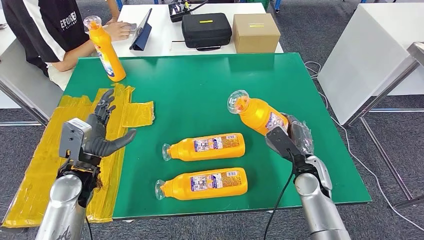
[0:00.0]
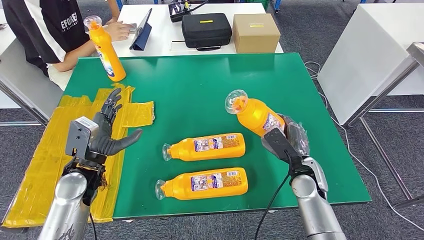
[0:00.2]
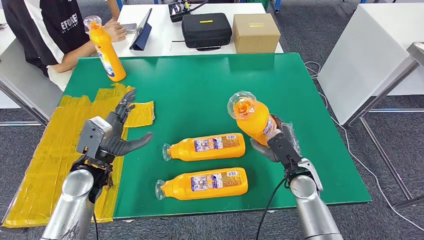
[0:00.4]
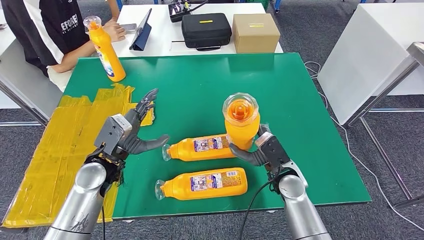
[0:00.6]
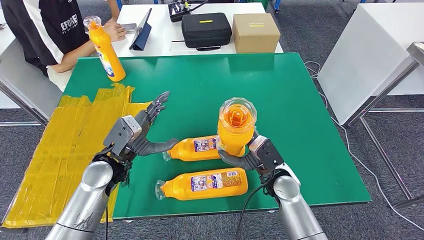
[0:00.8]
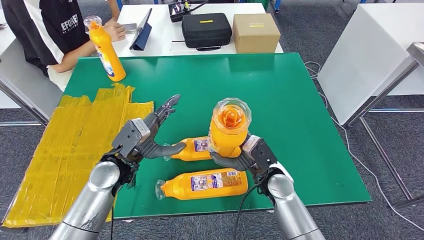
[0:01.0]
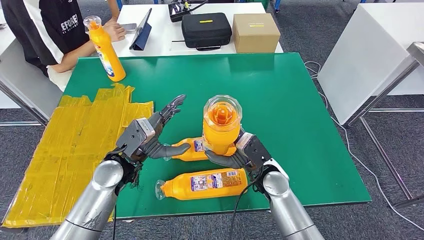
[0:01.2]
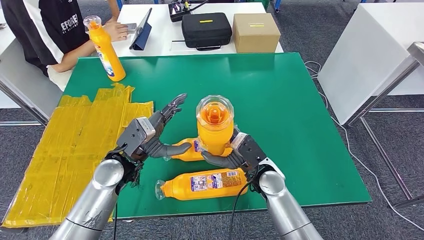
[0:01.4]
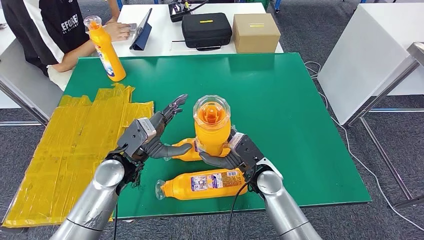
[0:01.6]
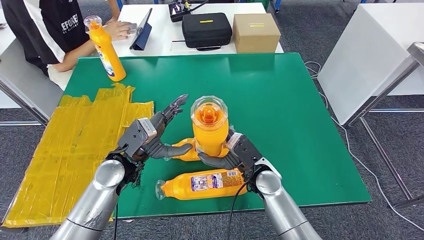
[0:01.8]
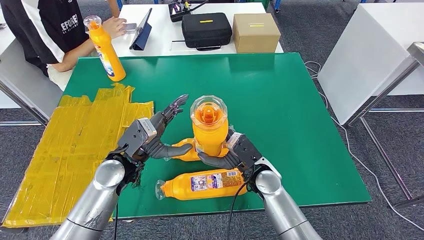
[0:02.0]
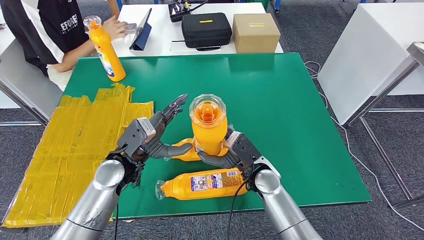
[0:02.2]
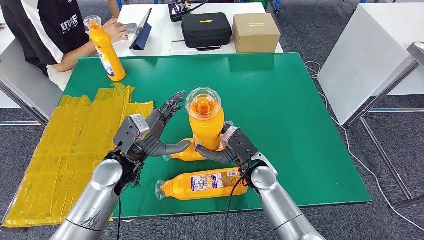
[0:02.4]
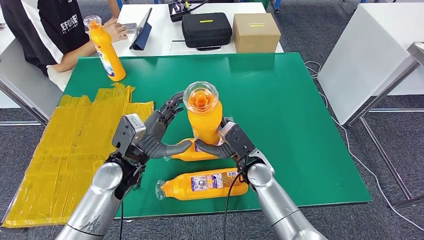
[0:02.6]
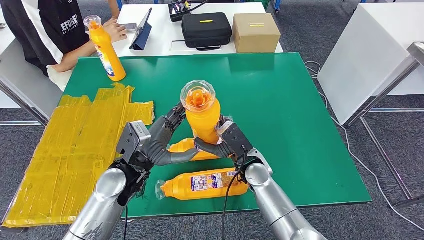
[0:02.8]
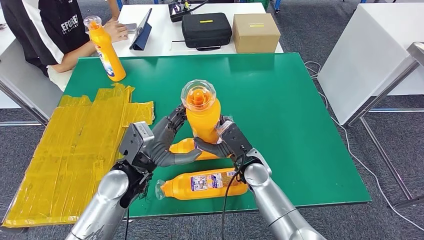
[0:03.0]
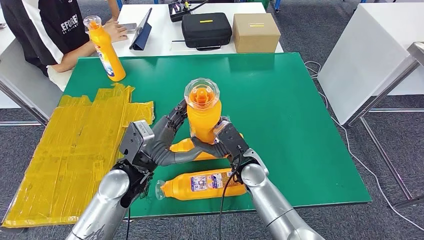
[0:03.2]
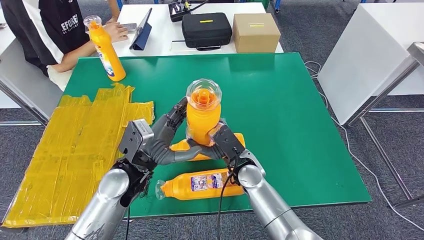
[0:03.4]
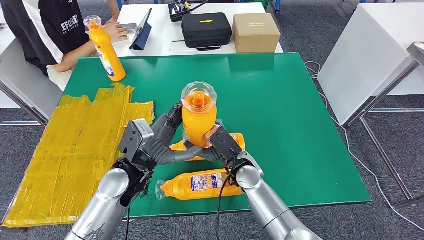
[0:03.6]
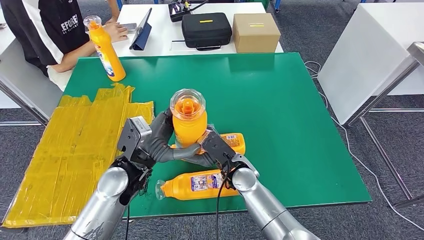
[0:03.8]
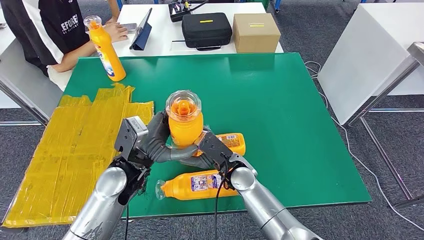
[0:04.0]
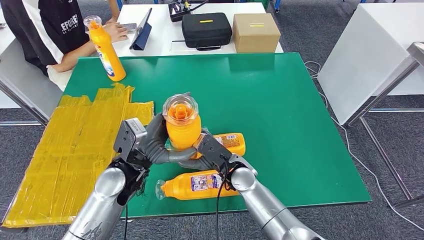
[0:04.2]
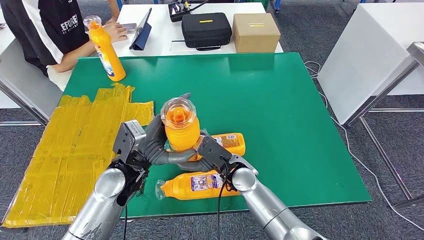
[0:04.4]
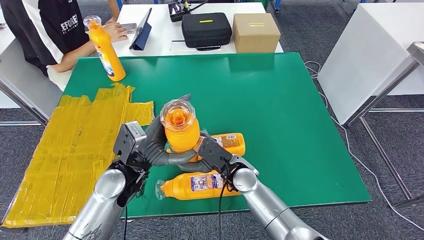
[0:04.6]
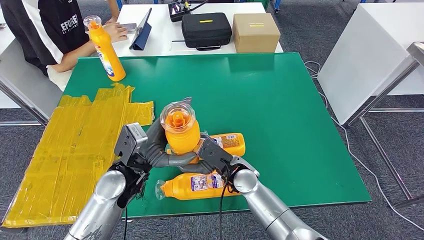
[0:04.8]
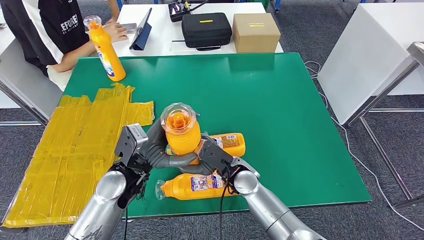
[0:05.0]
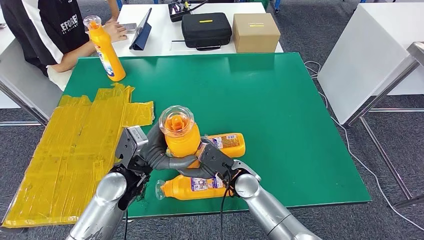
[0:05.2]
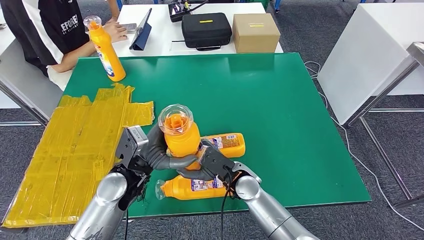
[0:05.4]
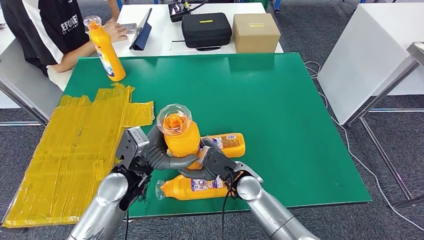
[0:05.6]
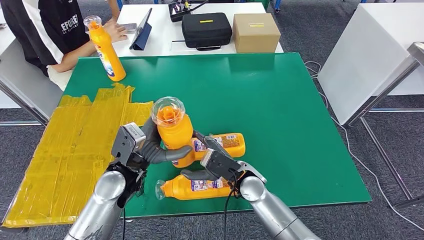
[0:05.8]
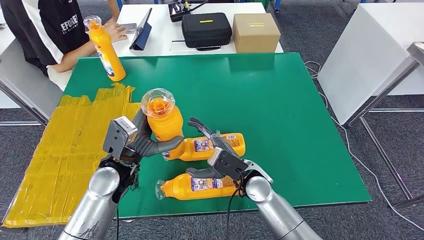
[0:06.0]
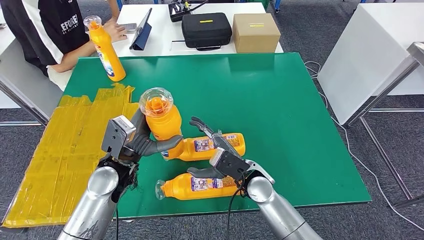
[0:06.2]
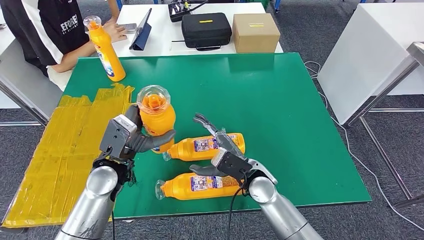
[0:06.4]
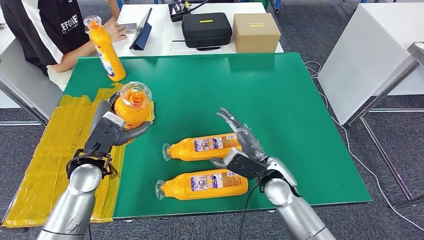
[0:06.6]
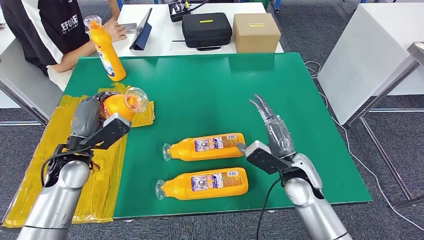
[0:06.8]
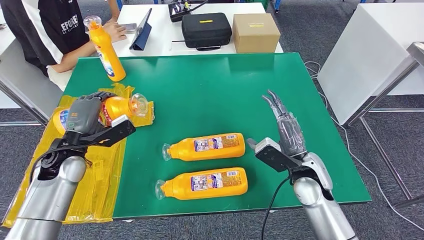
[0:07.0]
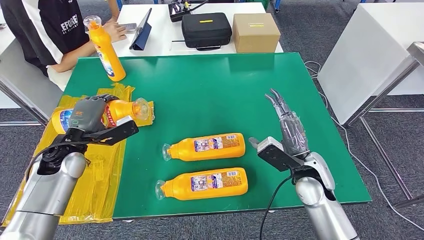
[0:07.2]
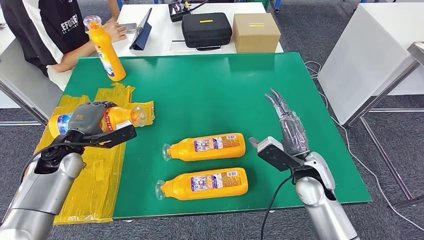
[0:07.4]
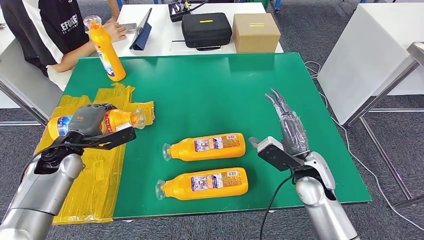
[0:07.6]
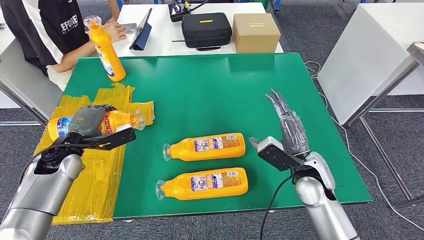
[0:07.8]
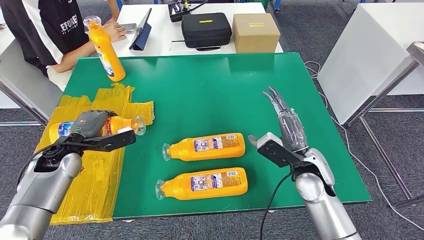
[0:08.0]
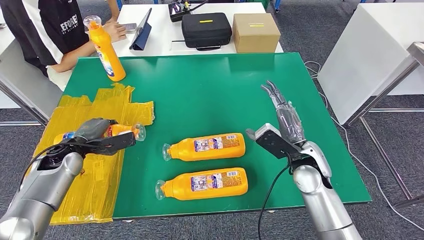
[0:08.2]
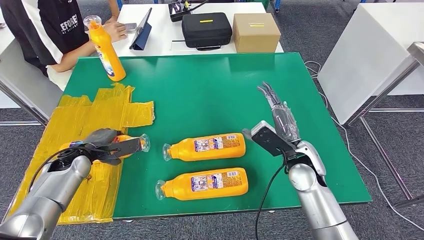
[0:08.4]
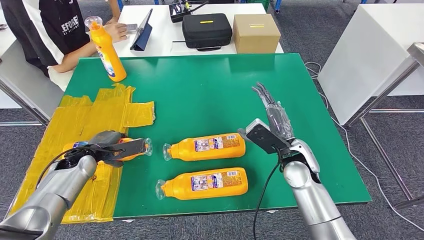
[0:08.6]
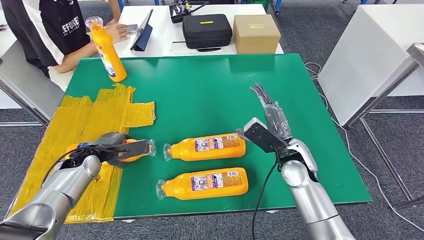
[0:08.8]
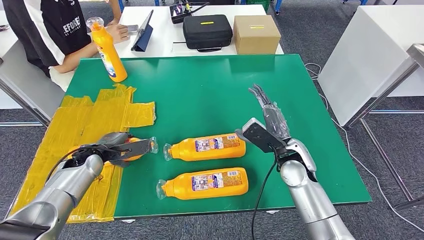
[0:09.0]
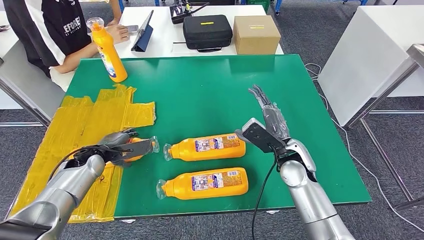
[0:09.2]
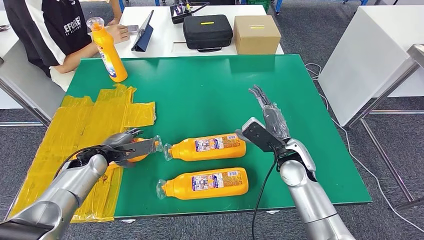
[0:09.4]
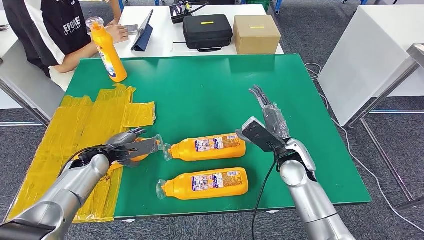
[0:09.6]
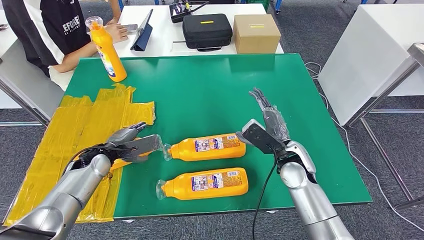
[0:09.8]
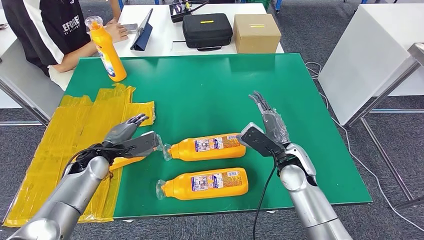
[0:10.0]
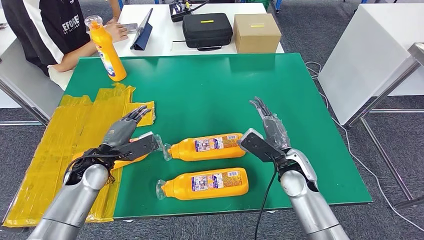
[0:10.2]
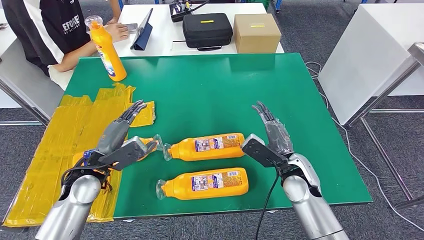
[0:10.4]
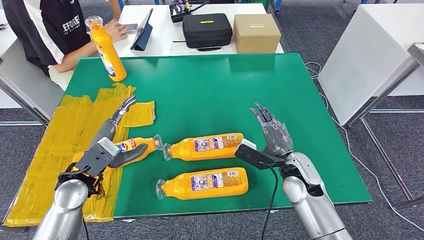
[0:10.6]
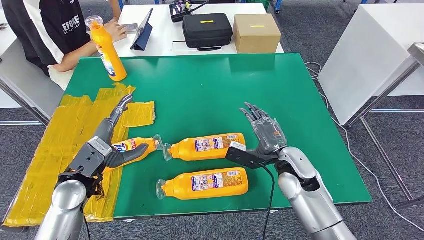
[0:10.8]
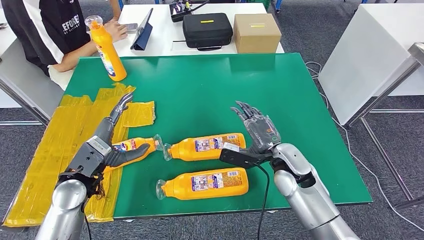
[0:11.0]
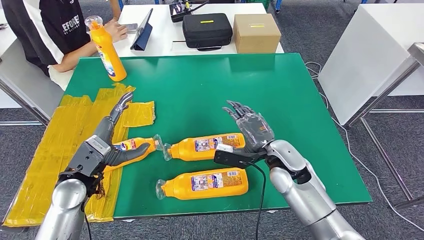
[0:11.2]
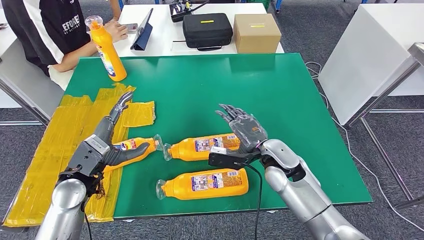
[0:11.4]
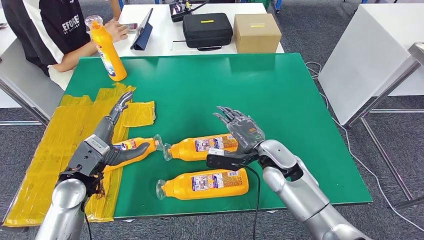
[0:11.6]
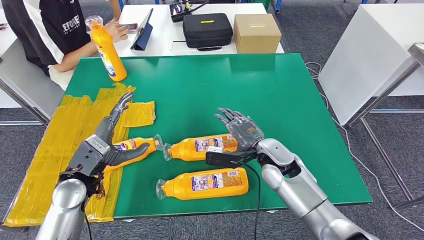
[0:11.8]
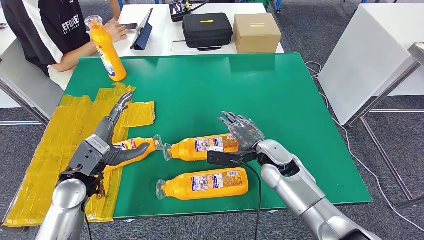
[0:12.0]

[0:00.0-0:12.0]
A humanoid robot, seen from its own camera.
Step, 0:02.0 to 0:11.2: Flip the bottle to face forward.
0:01.6 to 0:03.0: The hands make only small movements.
0:04.4 to 0:06.0: The hands stay close to where they were, moving slightly.
0:09.0 to 0:10.4: The left hand shifts some 10 cm backward and upward.
0:10.4 to 0:12.0: The right hand goes some 5 cm to the left.

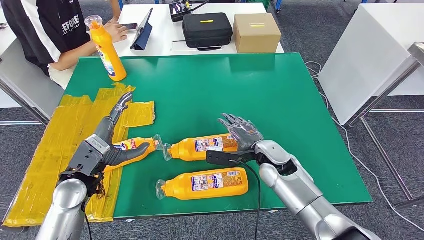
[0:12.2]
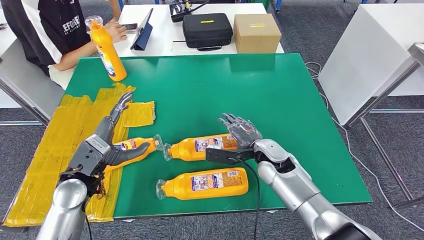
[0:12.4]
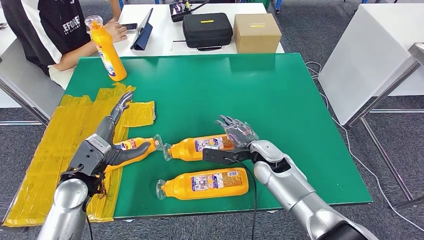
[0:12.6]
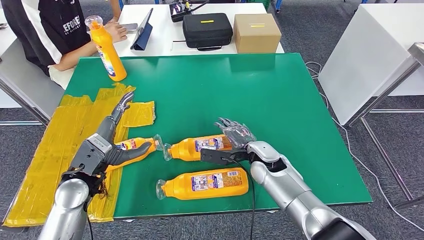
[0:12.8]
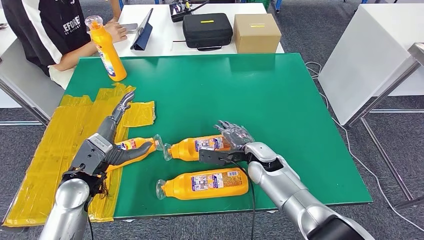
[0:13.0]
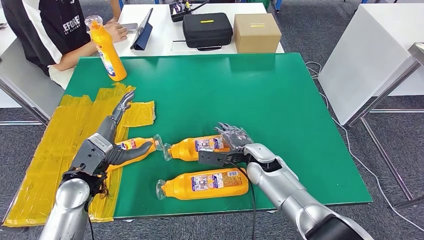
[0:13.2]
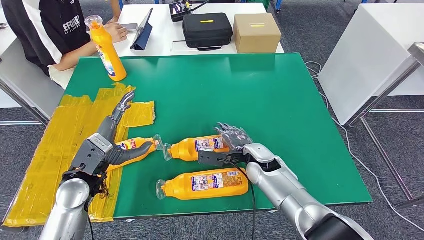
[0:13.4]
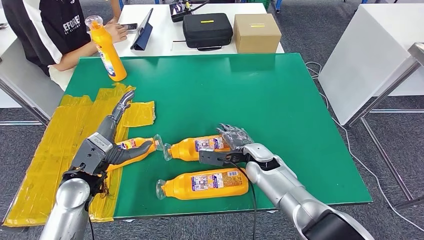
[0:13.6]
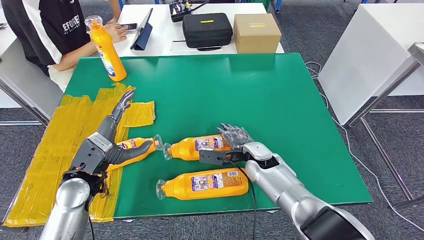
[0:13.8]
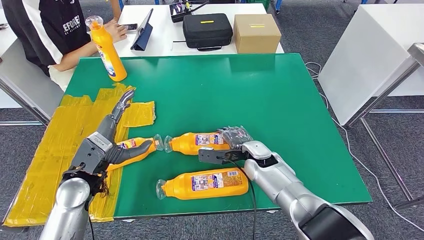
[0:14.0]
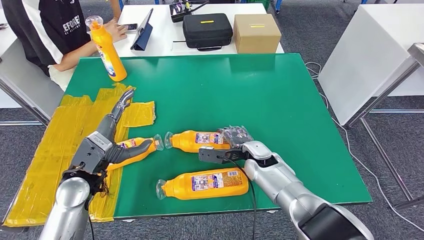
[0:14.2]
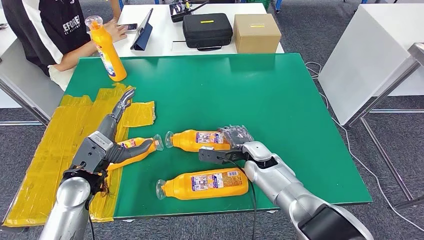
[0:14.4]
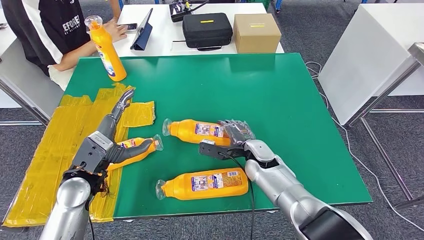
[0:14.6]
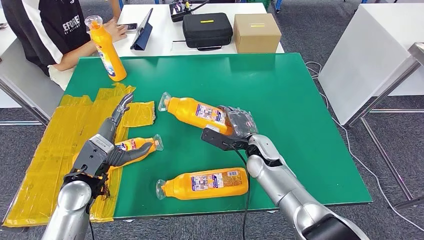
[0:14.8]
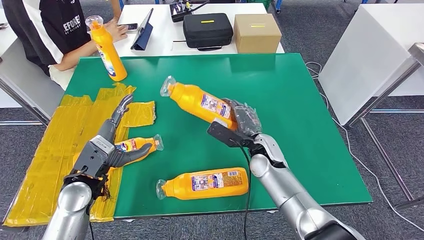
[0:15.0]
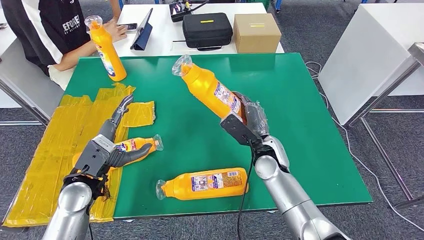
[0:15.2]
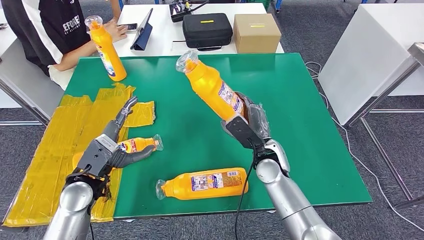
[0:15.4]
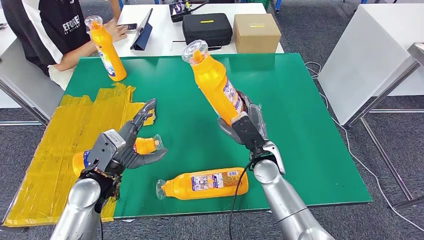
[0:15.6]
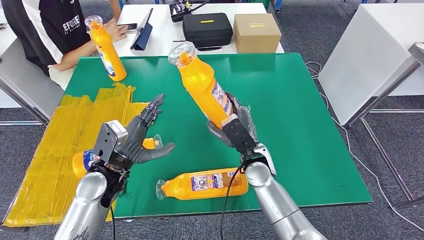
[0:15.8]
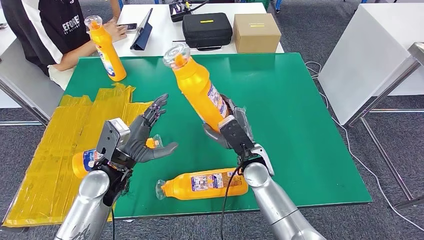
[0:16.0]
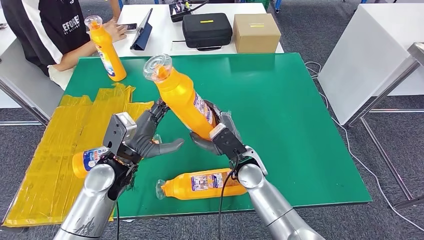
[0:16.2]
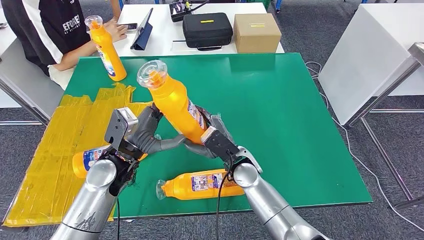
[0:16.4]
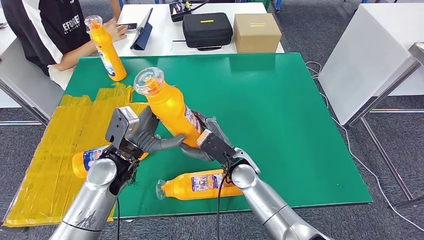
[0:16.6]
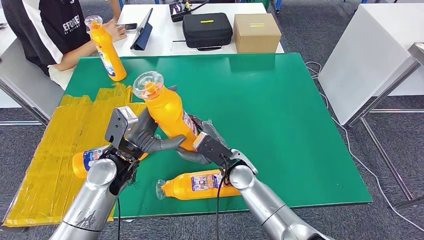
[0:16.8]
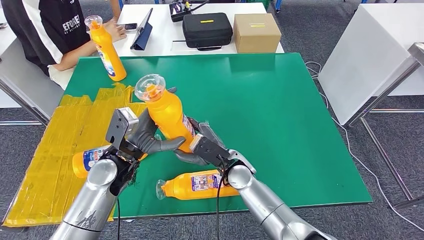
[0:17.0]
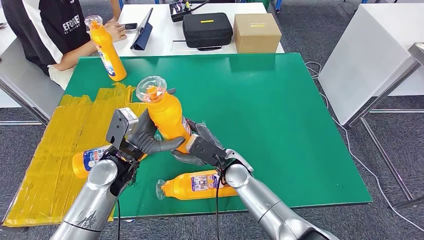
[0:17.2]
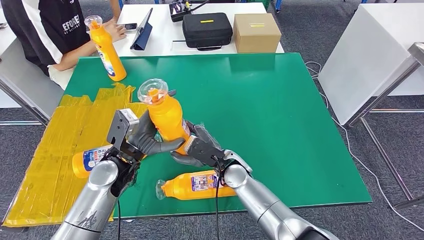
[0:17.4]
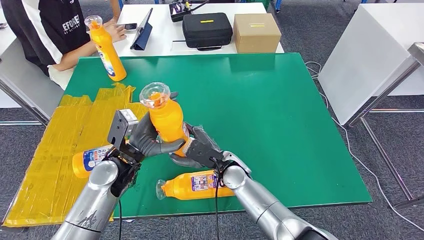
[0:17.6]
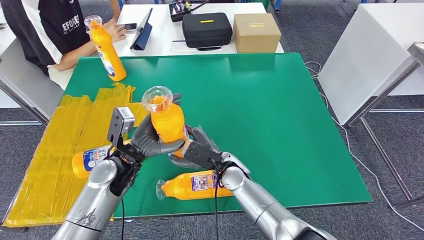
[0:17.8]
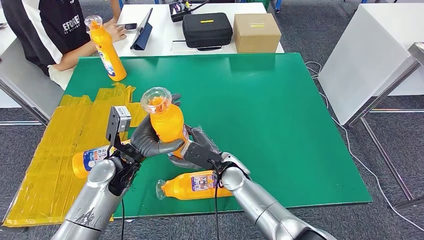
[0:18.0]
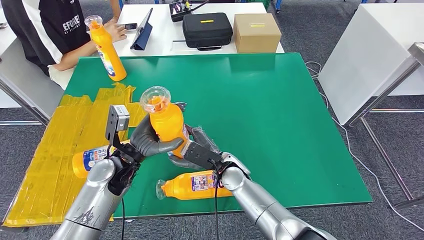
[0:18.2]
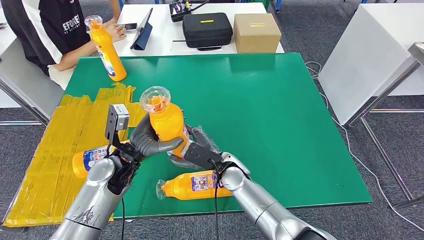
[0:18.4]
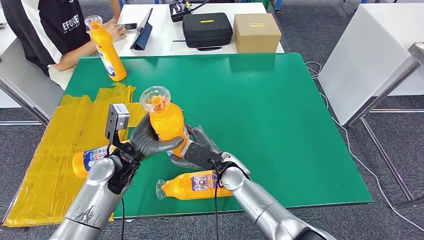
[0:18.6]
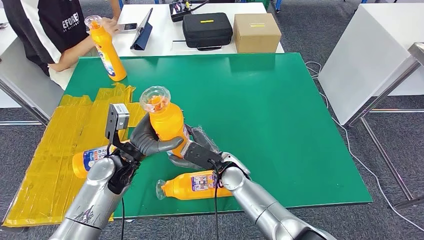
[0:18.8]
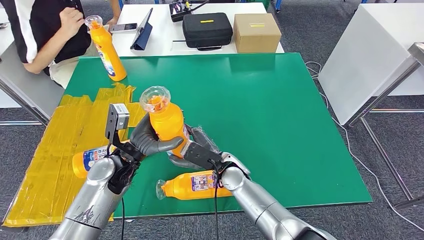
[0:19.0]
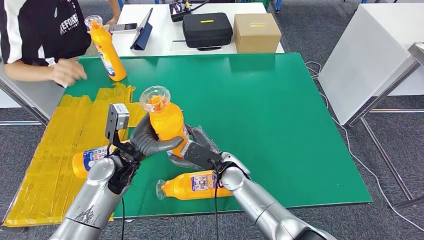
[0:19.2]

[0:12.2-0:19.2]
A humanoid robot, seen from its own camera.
0:12.2 to 0:13.6: The hands move only a little.
0:15.0 to 0:16.4: The left hand is displaced to the right by approximately 10 cm. Meanwhile the right hand goes some 5 cm to the left.
0:16.4 to 0:19.2: There are only small adjustments of the hands.
